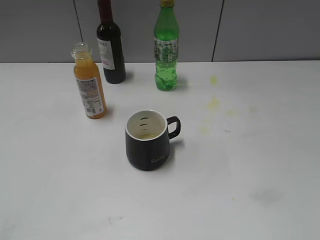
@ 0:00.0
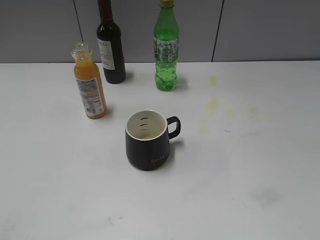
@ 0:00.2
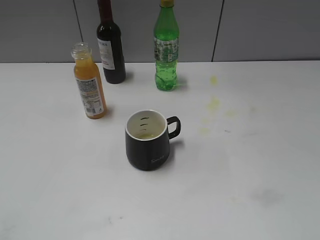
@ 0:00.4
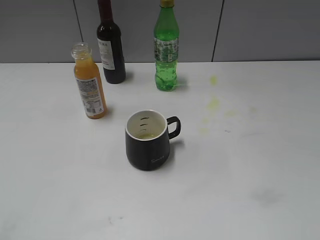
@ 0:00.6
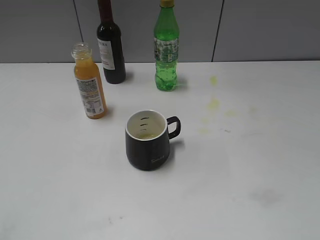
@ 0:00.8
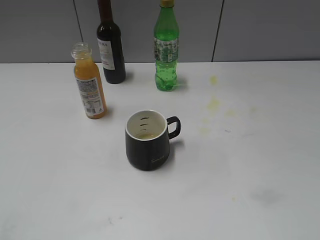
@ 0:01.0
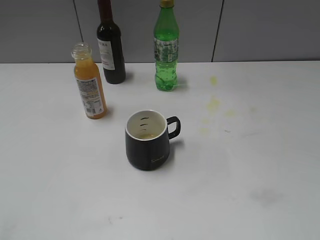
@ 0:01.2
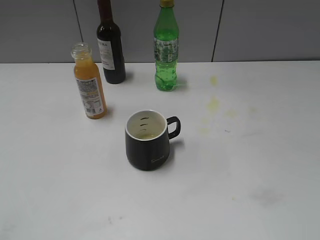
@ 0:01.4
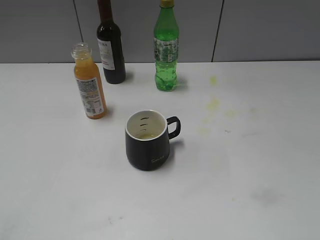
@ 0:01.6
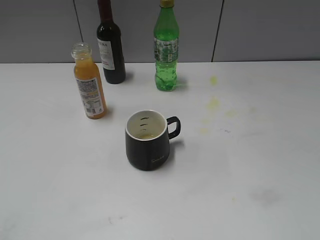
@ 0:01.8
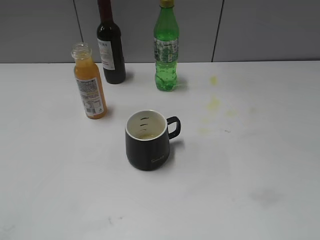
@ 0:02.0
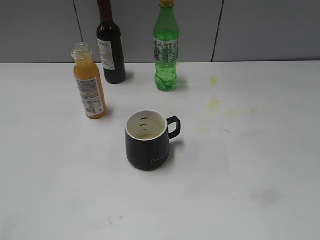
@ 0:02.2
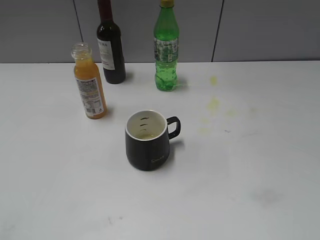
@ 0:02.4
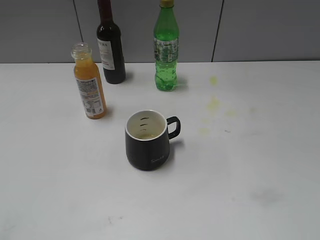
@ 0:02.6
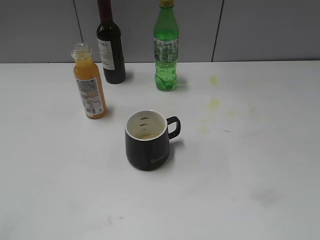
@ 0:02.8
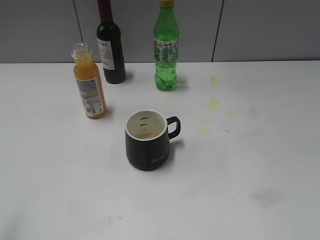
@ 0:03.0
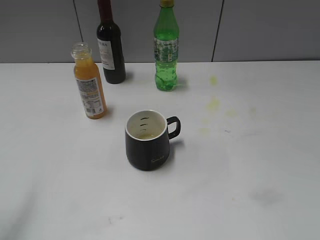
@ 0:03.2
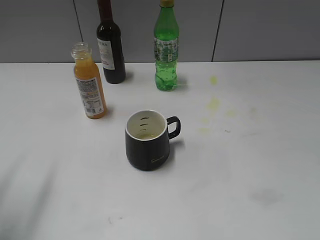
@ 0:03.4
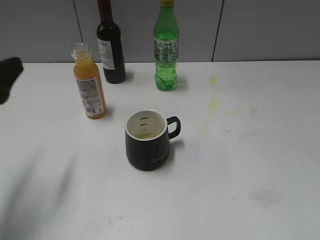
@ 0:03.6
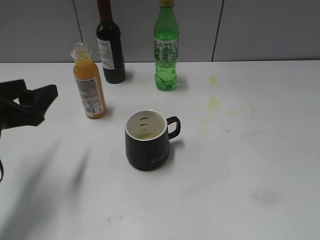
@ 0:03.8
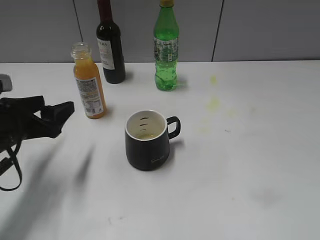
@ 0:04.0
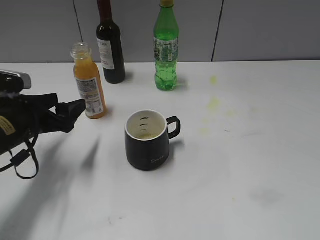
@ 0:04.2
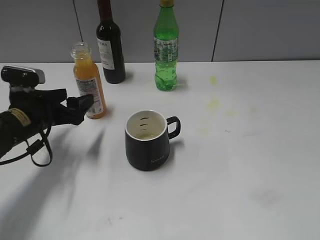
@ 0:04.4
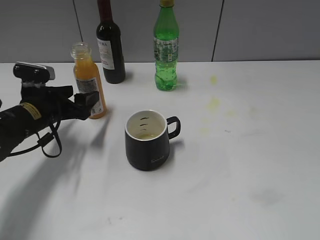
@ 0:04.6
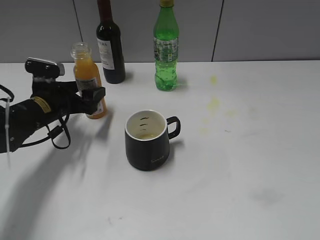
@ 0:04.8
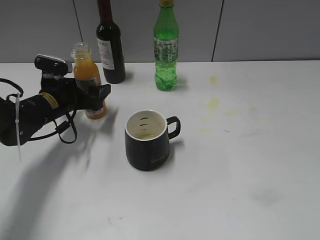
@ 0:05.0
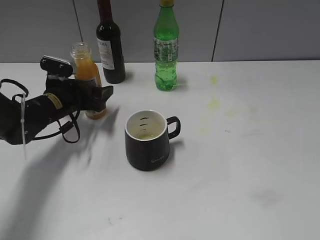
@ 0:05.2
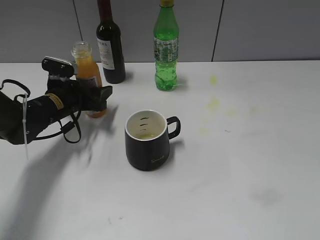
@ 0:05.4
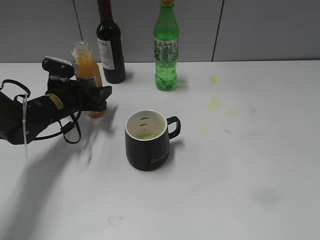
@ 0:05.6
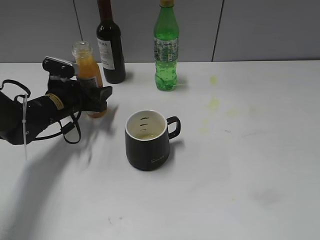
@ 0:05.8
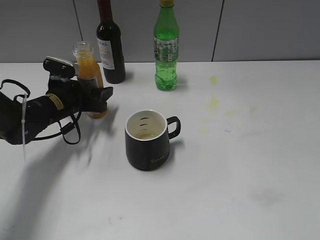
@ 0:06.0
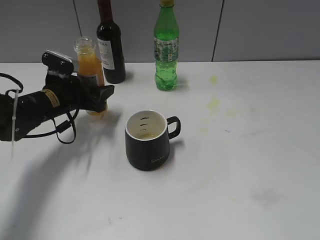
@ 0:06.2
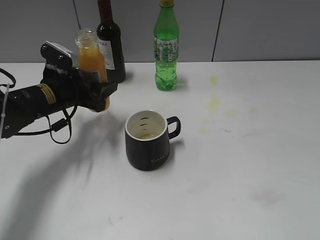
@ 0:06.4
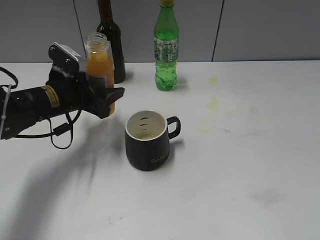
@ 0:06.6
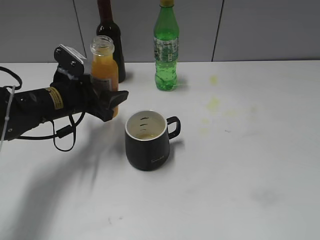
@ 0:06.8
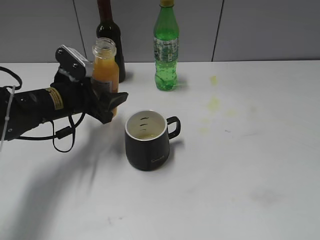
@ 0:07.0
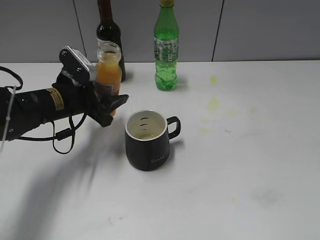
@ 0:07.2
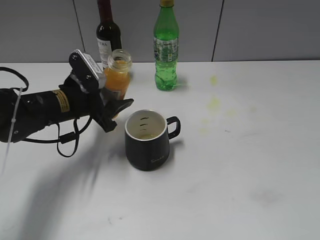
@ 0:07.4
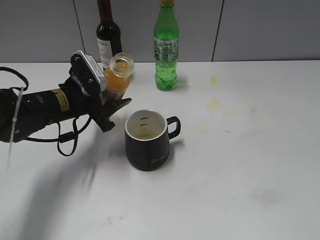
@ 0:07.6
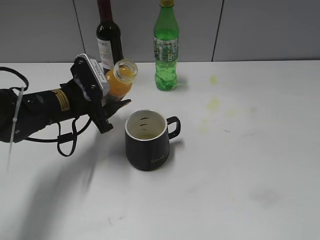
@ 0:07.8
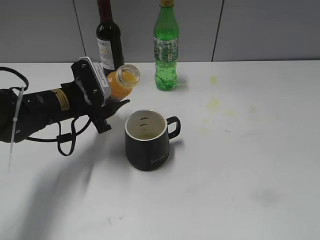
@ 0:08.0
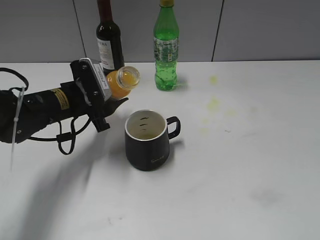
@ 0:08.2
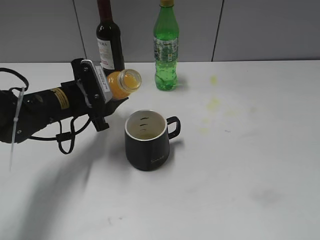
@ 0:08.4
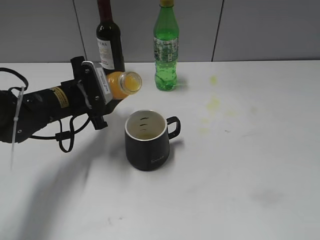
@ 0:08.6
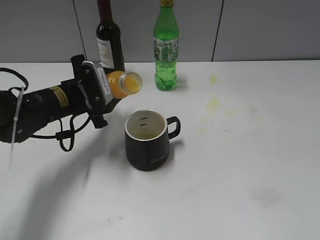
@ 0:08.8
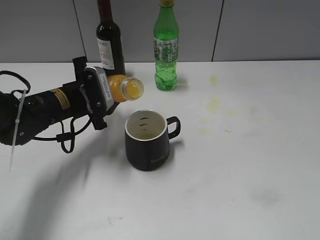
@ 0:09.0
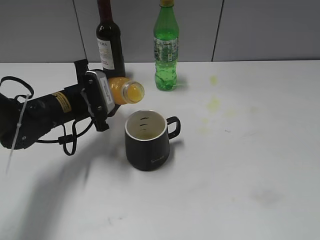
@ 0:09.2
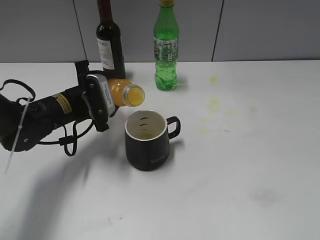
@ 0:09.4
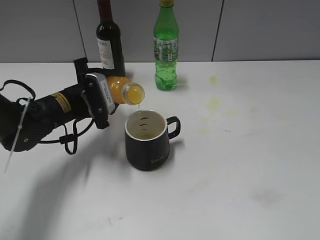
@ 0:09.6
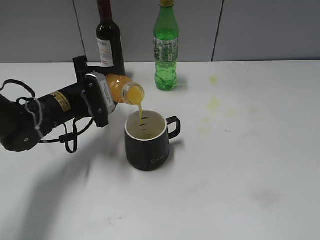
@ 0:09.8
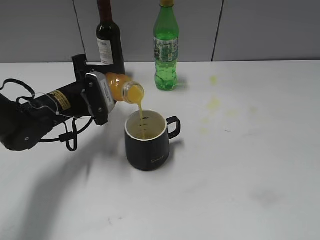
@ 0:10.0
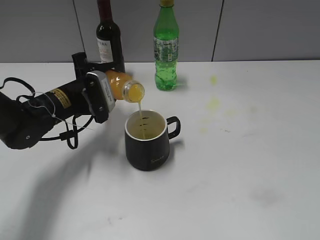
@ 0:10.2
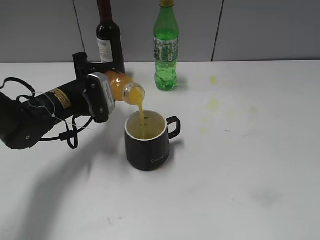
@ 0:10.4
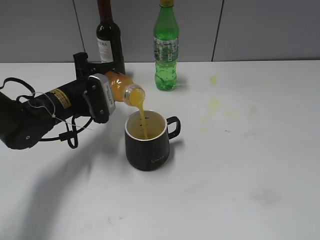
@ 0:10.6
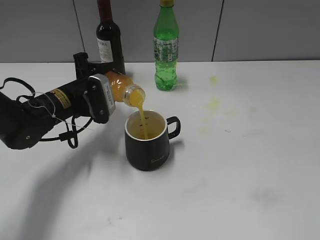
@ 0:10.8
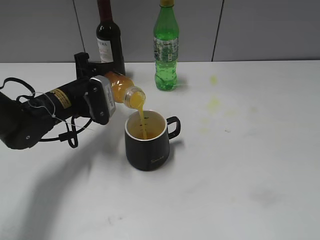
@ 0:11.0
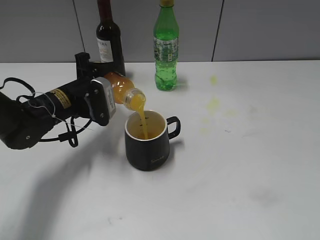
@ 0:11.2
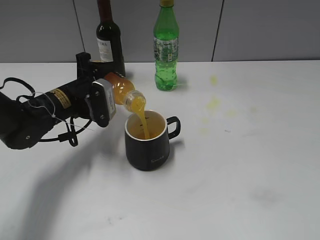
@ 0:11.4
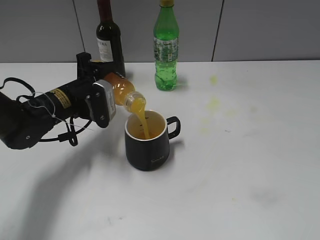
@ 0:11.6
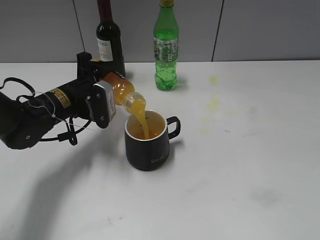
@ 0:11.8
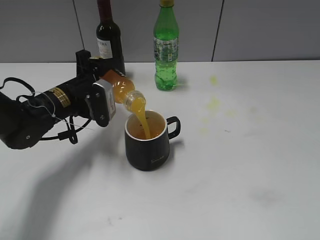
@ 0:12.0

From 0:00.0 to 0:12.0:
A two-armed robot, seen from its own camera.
Step, from 0:00.0 to 0:06.0: Grasp the bottle with orange juice with left gripper.
From 0:00.0 to 0:01.6: The two grippers keep their place.
From 0:03.0 to 0:04.4: The left gripper heads forward and downward, covering approximately 30 cm.
From 0:04.4 to 0:06.0: The left gripper shifts some 10 cm forward, and closes.
From 0:06.0 to 0:07.6: The left gripper shifts by some 5 cm.
From 0:09.0 to 0:10.4: The grippers make only small movements.
From 0:10.4 to 0:12.0: The grippers make only small movements.

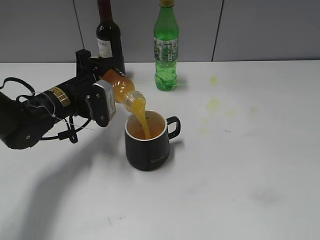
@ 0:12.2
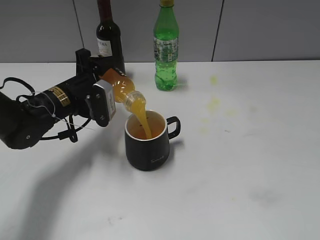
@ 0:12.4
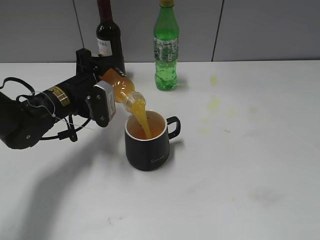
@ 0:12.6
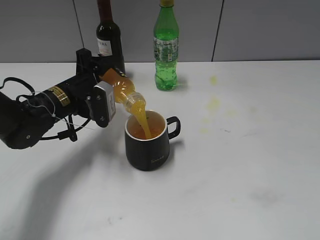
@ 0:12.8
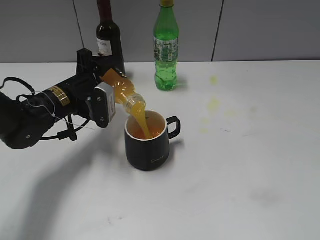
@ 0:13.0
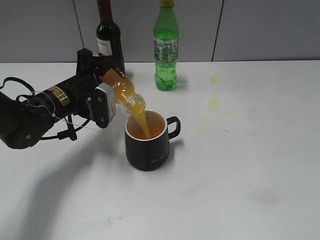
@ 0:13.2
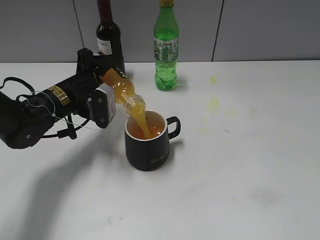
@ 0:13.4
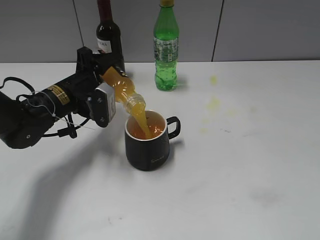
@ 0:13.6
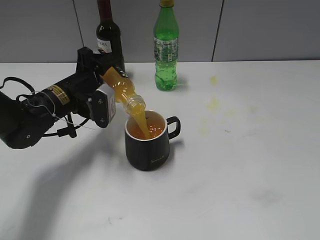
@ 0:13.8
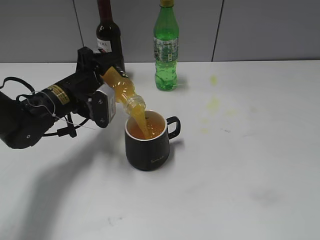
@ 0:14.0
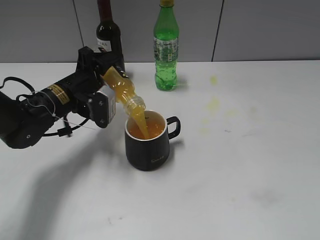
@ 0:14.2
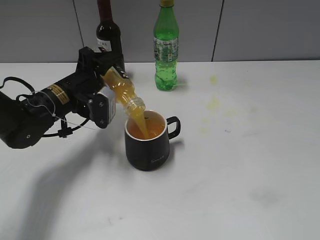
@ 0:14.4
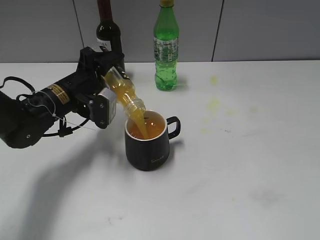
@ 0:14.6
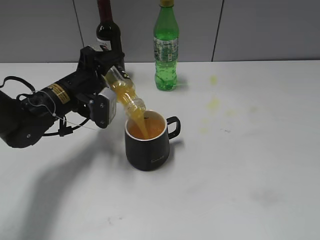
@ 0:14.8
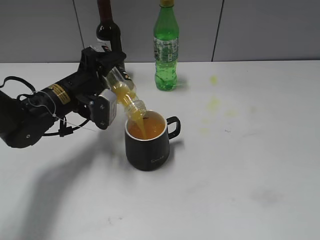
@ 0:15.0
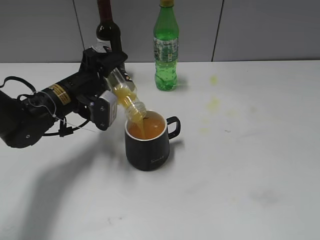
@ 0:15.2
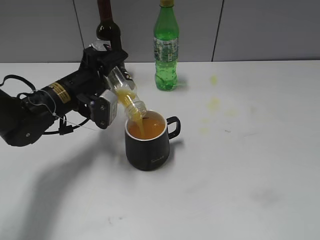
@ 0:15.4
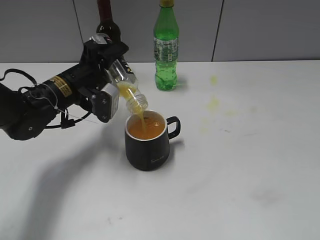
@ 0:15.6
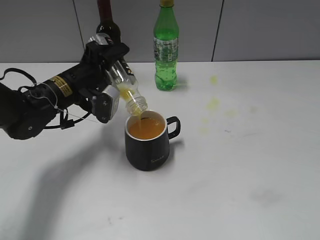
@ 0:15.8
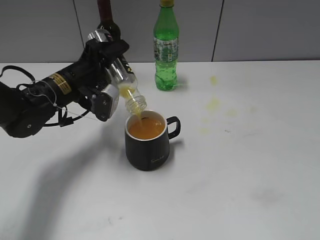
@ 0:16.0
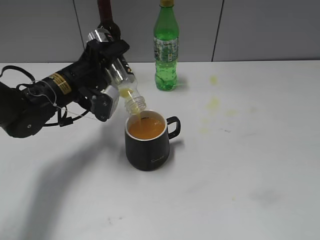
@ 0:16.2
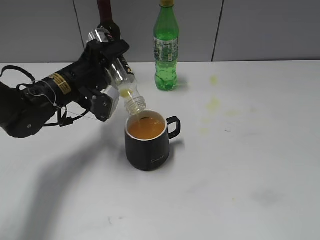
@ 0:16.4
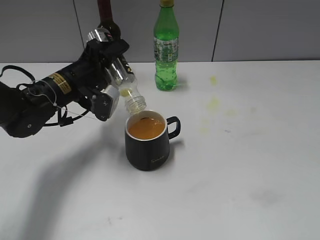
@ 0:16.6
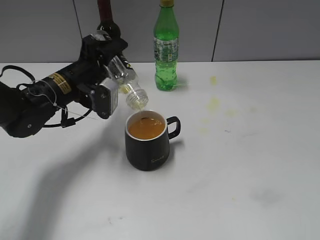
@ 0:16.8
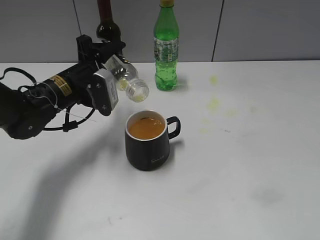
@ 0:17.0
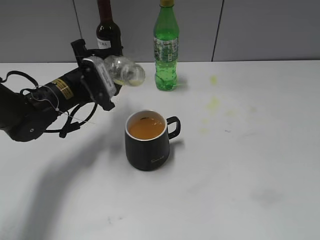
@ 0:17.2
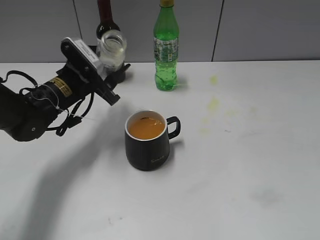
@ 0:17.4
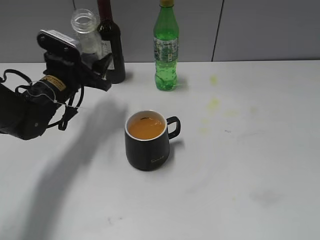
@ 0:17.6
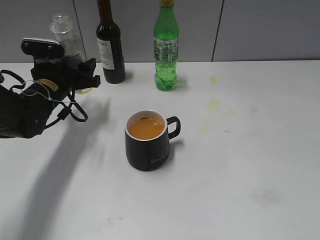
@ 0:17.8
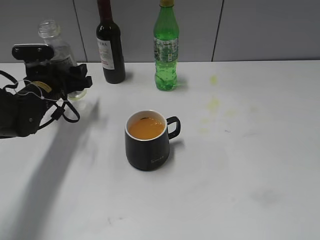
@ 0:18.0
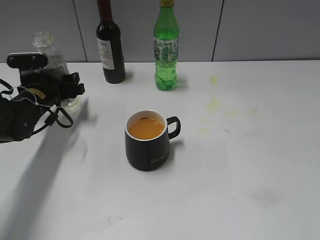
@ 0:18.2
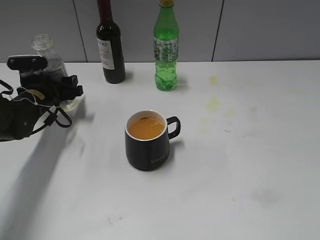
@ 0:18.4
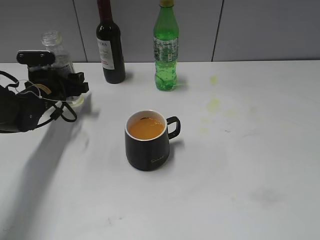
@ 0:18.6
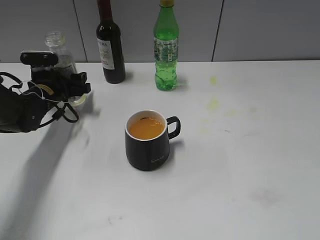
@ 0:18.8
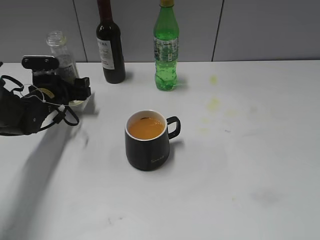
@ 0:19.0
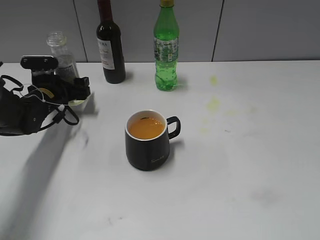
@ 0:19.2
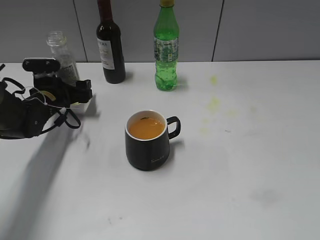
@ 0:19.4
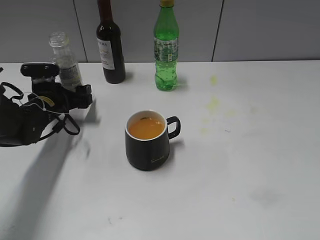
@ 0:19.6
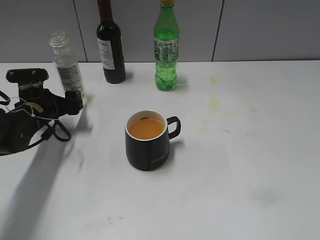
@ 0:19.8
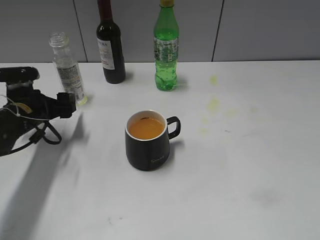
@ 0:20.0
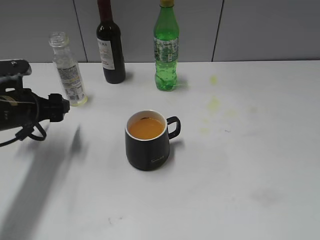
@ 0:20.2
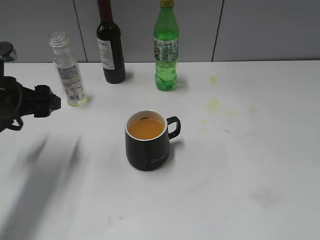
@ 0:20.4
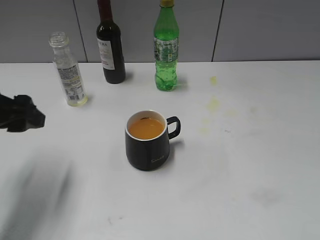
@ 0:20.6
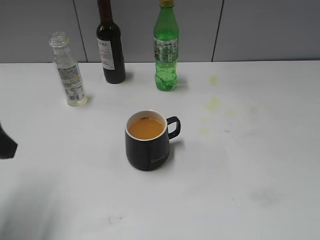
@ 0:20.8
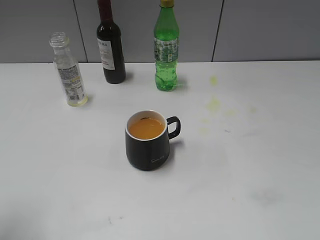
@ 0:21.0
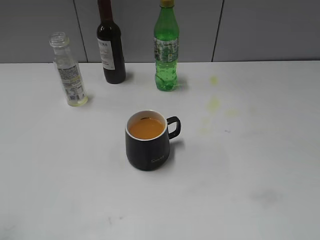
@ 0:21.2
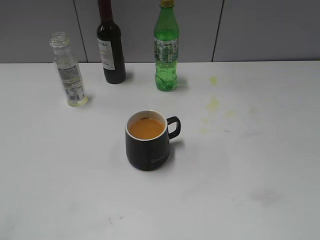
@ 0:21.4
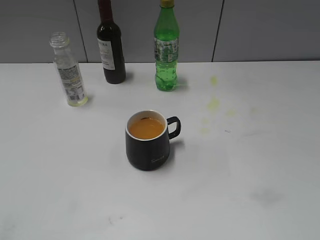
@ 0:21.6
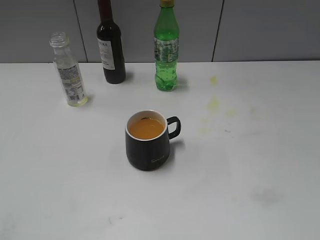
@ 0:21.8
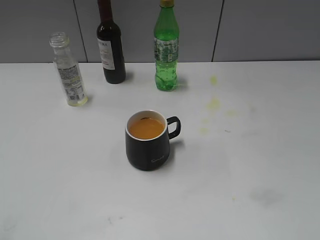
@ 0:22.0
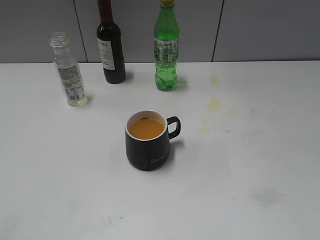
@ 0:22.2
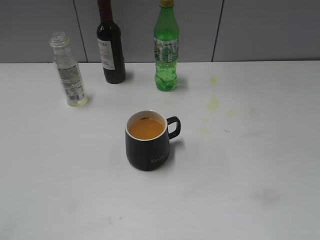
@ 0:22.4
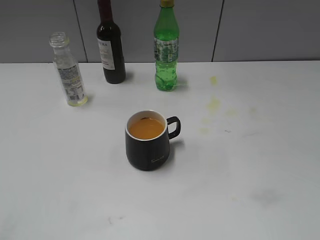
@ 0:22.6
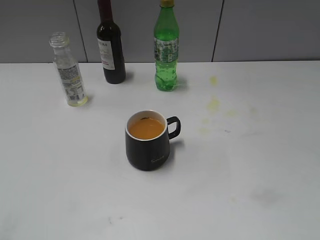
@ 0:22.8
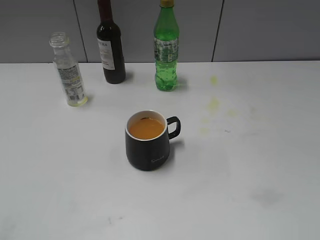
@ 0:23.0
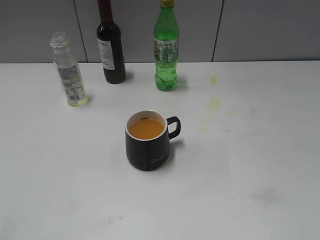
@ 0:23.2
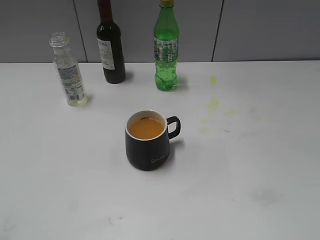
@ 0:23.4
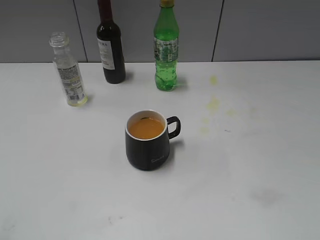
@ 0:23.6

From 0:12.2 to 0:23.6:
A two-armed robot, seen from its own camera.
Step, from 0:12.2 to 0:17.0: Pour the orange juice from bottle to cup with left gripper.
Step, from 0:17.2 to 0:19.4: Place the orange juice bottle on the table with left gripper.
From 0:12.2 to 0:15.0: The grippers move only a little.
From 0:15.0 to 0:16.4: The grippers stay close to where they were, moving slightly.
From 0:17.8 to 0:19.4: The left gripper is displaced downward by about 5 cm, and opens.
From 0:19.4 to 0:20.8: The left gripper heads backward and upward, covering roughly 25 cm.
From 0:20.8 to 0:22.2: The left gripper shifts roughly 15 cm backward.
